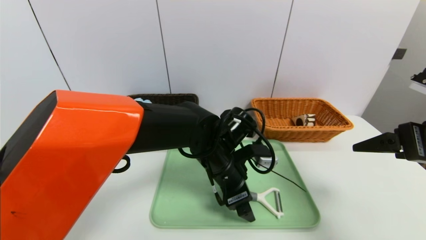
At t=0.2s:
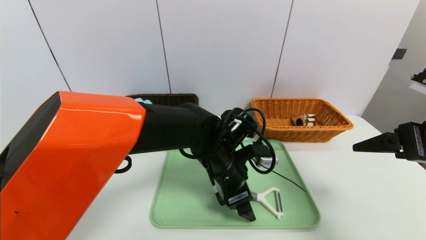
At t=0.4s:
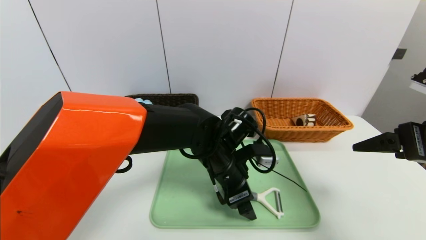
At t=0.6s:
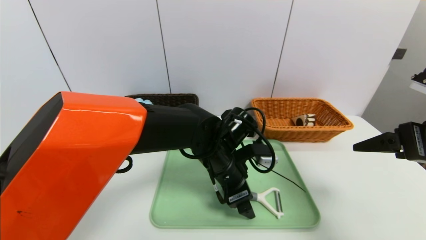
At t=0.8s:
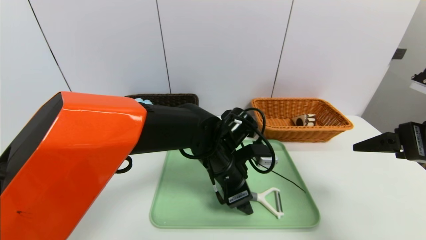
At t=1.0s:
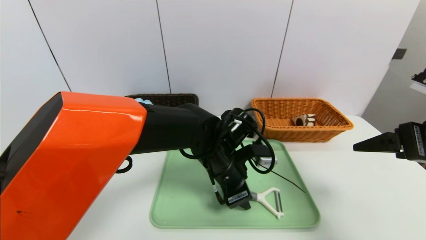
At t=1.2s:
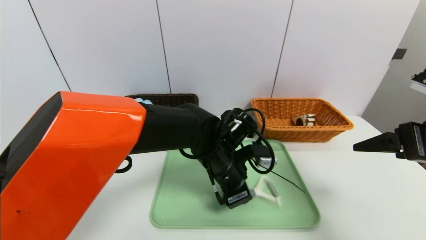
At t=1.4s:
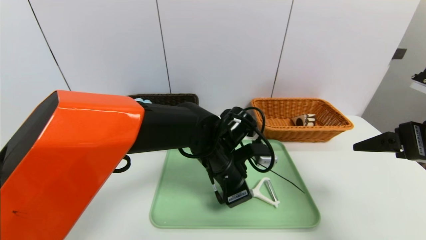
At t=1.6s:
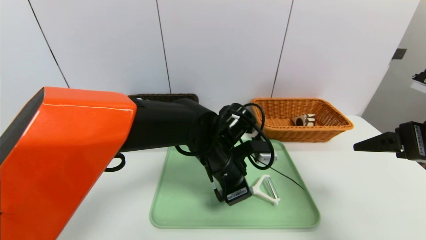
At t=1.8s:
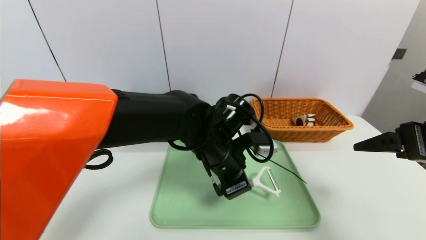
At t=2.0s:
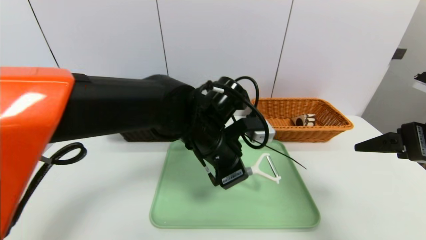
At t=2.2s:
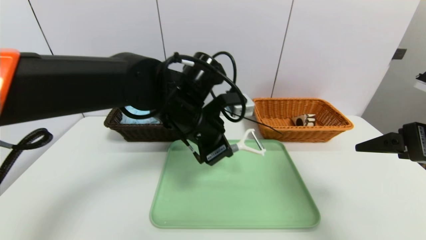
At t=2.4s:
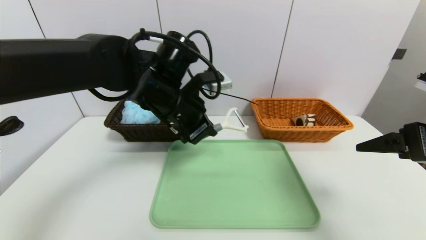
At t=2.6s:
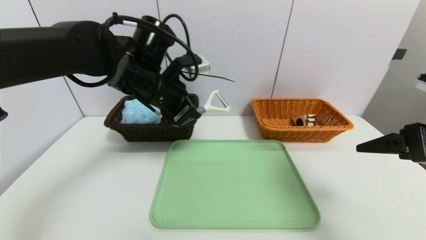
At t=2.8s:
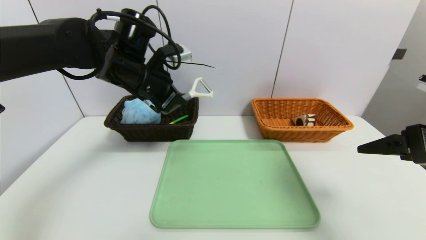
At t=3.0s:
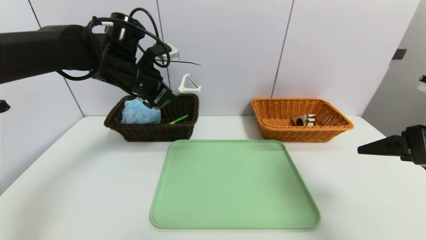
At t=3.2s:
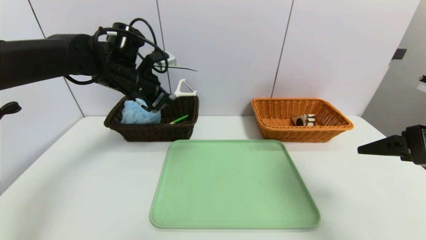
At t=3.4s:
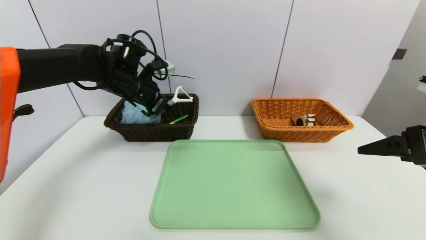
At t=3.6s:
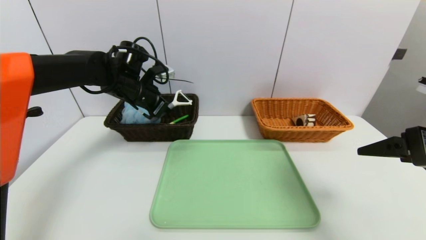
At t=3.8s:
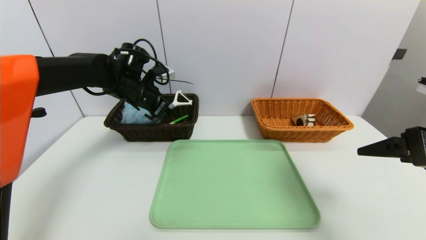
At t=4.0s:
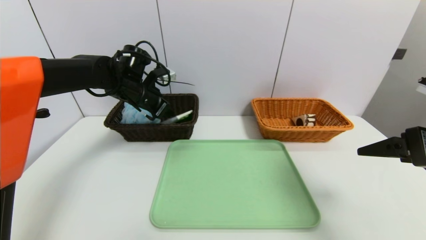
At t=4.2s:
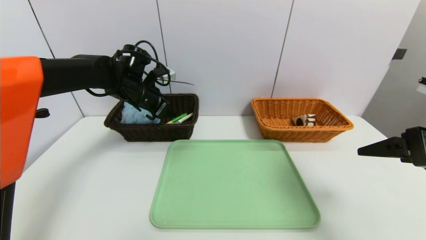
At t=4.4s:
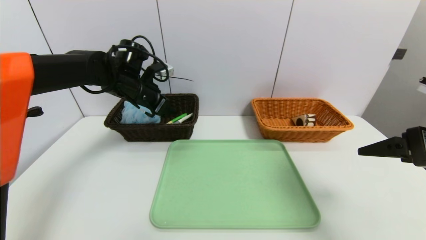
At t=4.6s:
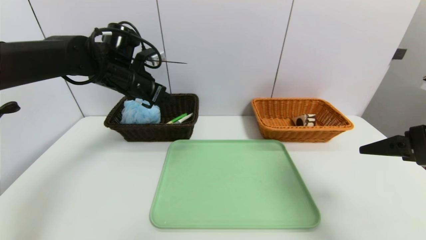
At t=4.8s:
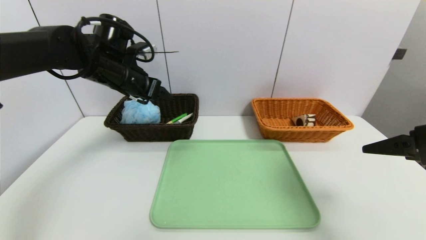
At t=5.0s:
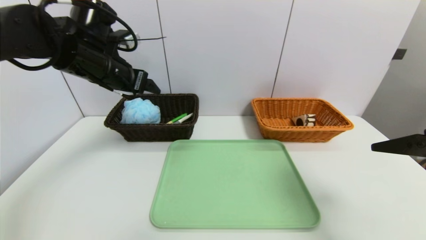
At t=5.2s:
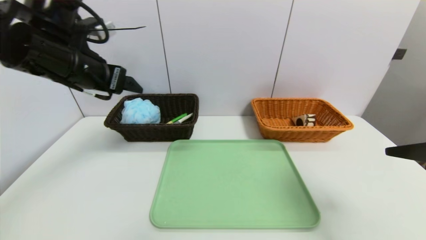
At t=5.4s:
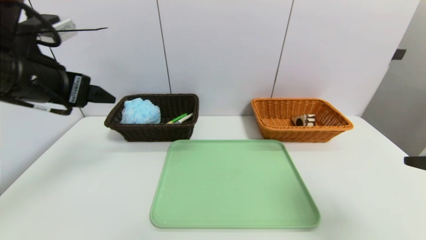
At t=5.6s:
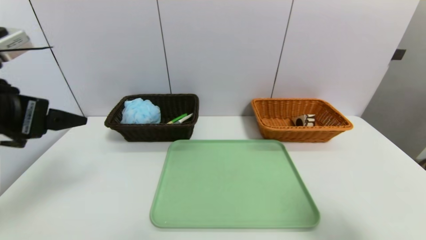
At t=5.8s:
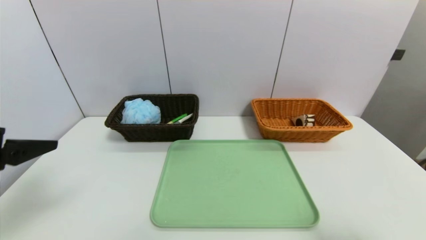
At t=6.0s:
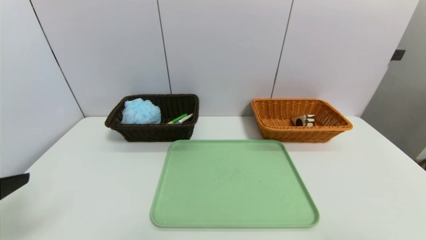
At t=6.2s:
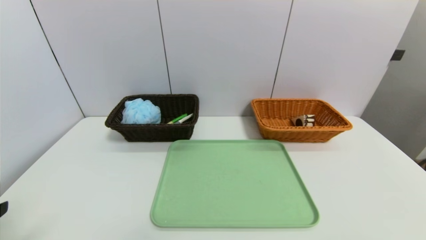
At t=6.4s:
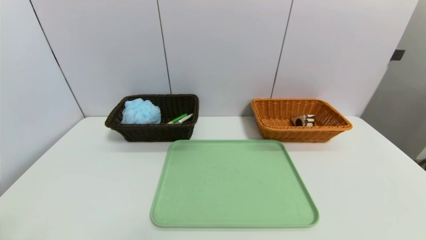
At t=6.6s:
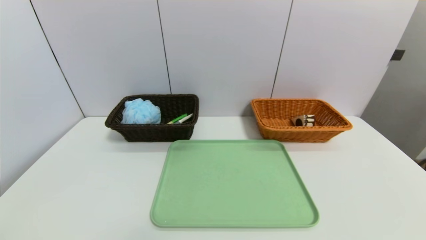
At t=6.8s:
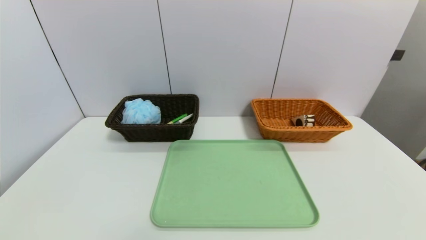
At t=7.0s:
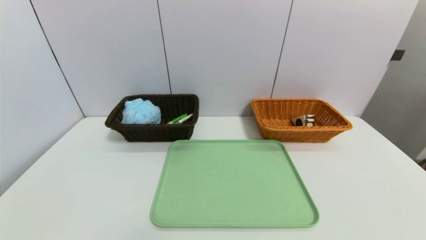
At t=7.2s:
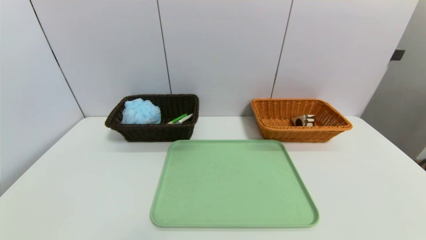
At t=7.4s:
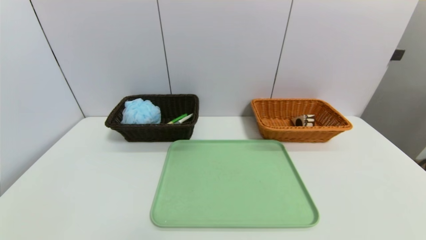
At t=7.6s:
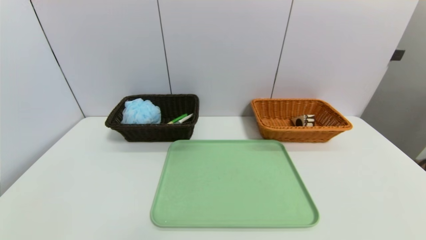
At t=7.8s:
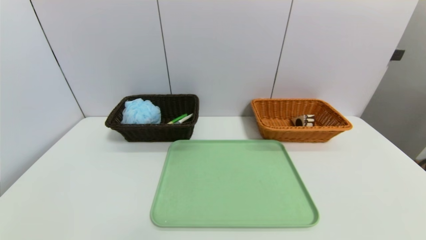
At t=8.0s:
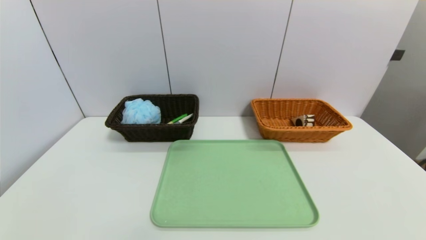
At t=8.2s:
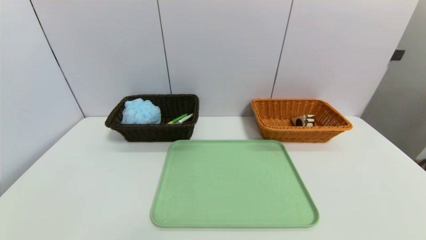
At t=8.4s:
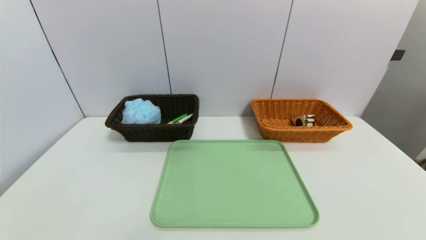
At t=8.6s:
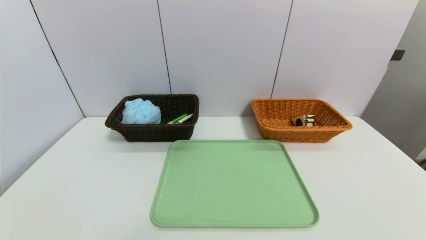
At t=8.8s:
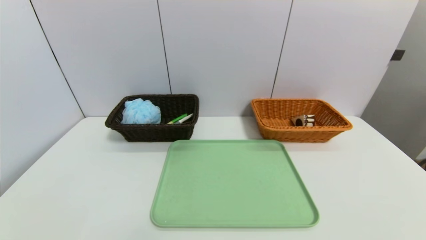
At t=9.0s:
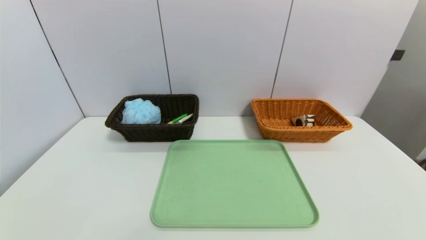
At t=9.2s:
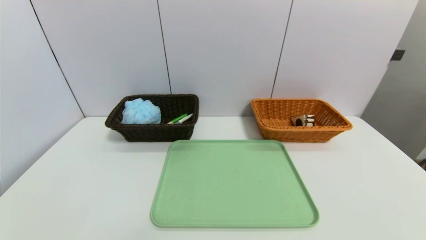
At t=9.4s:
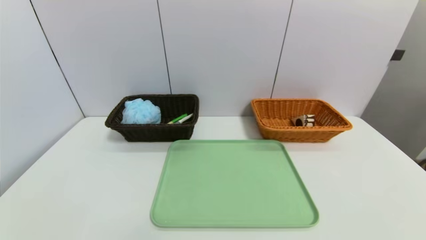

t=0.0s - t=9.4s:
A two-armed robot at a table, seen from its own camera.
Task of the whole recording: place the food in the right basket with the right gripper, and place the non food items in the left basket with the left gripper.
Step, t=0.0s - t=4.4s: Grasp the peeler and put it in the left basket.
t=0.0s - t=1.6s: The left gripper closes up.
t=1.6s - t=3.2s: The left gripper travels to the left, upward and forward by about 25 cm.
t=3.2s - t=4.8s: The left gripper opens.
t=4.8s - t=6.2s: The left gripper goes approximately 35 cm backward. Meanwhile the right gripper goes approximately 20 cm backward.

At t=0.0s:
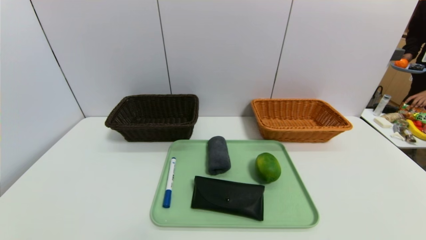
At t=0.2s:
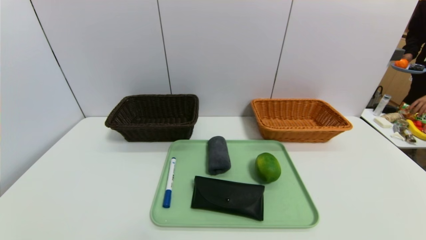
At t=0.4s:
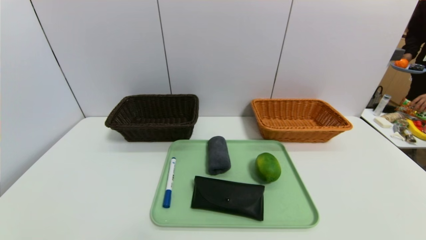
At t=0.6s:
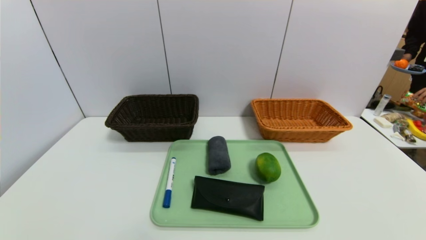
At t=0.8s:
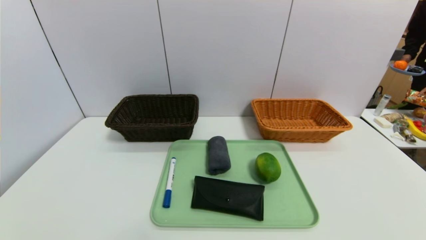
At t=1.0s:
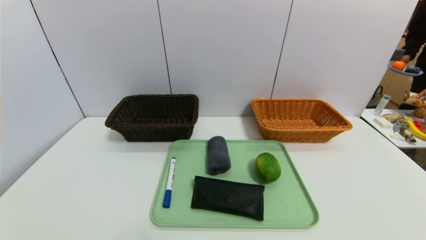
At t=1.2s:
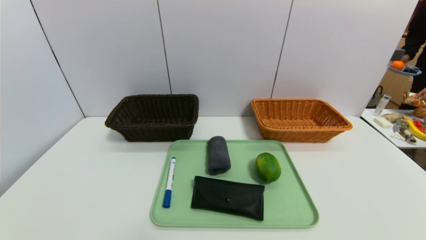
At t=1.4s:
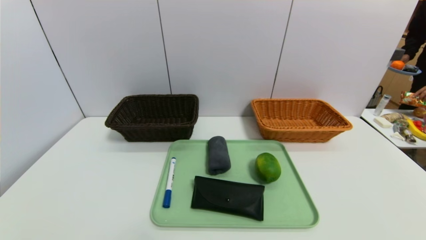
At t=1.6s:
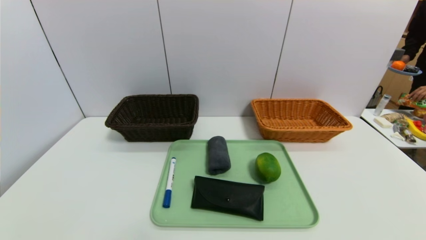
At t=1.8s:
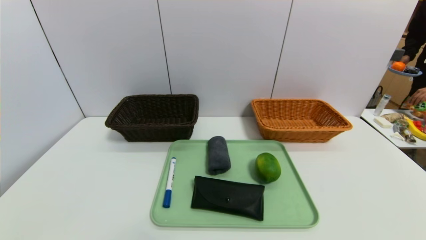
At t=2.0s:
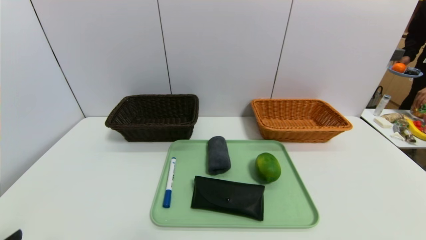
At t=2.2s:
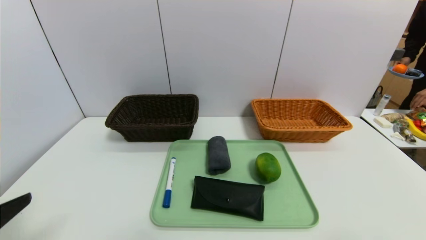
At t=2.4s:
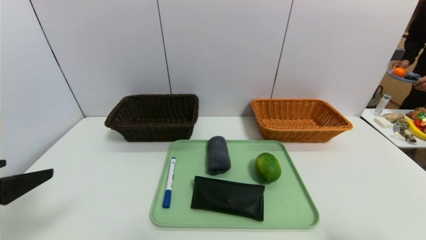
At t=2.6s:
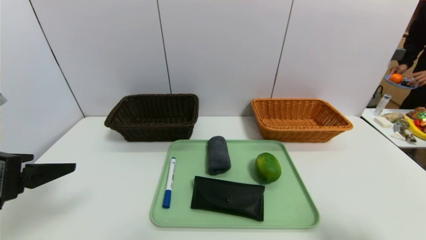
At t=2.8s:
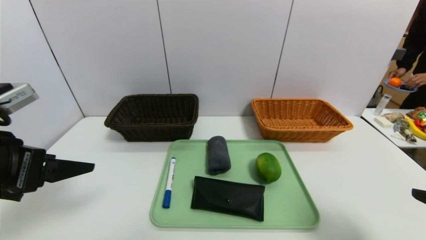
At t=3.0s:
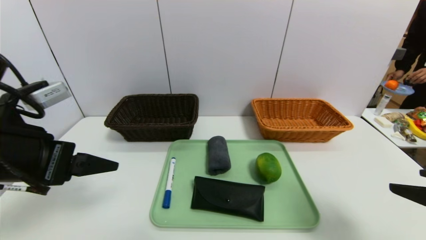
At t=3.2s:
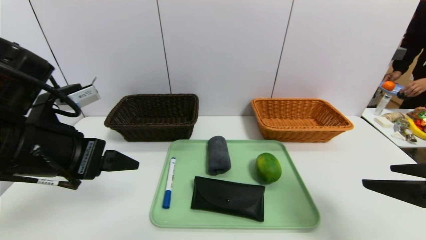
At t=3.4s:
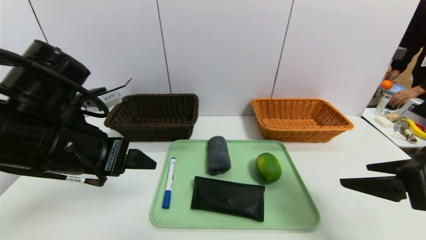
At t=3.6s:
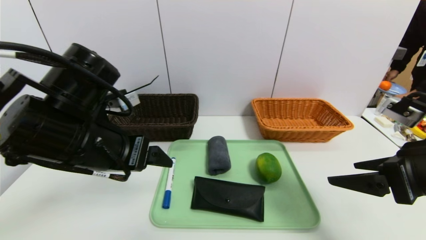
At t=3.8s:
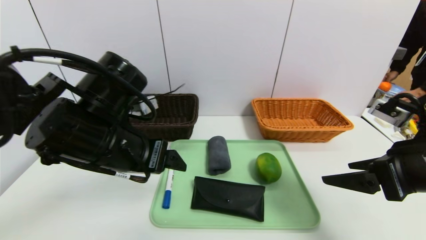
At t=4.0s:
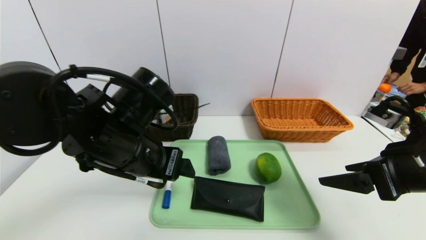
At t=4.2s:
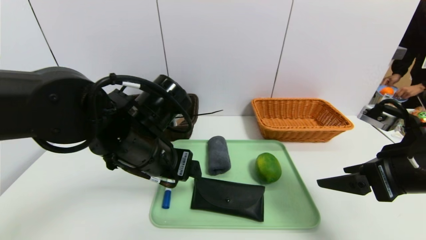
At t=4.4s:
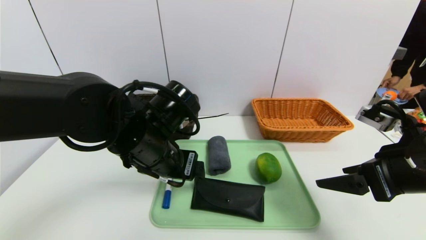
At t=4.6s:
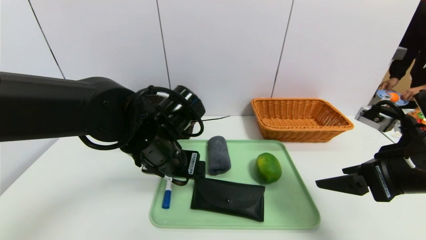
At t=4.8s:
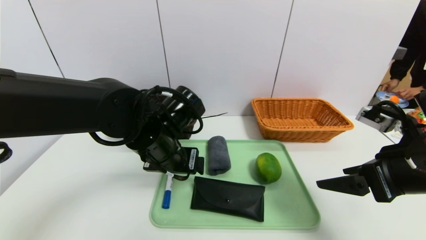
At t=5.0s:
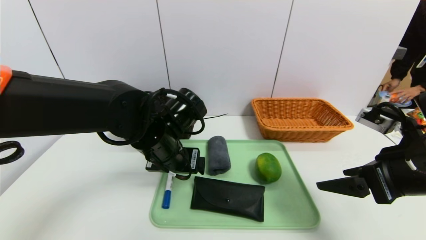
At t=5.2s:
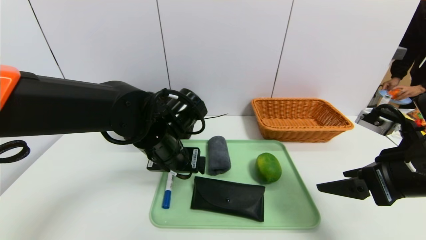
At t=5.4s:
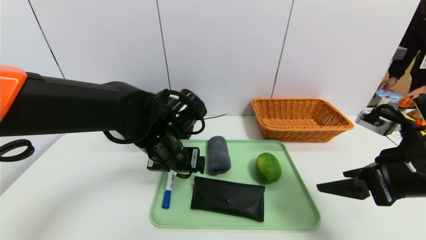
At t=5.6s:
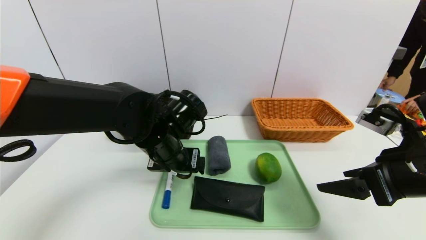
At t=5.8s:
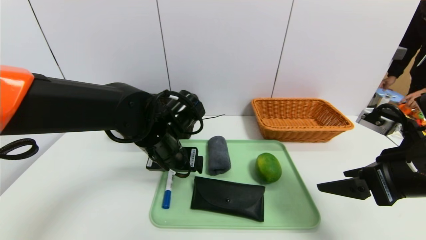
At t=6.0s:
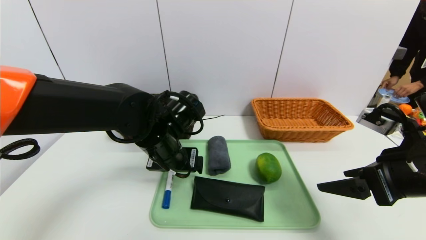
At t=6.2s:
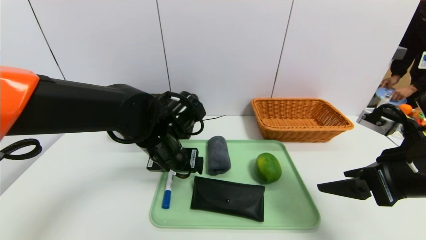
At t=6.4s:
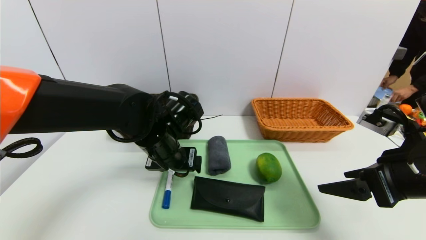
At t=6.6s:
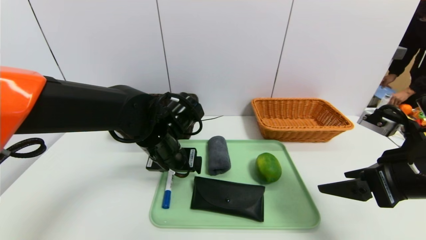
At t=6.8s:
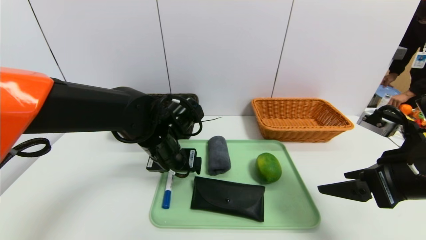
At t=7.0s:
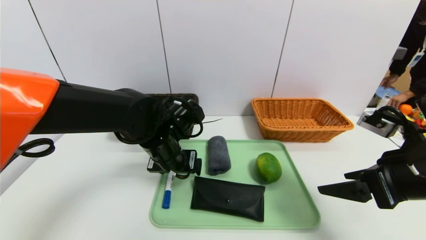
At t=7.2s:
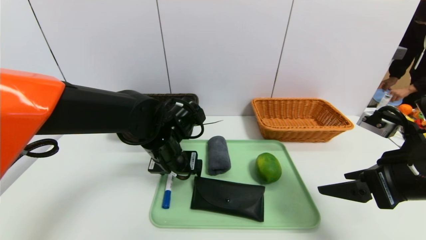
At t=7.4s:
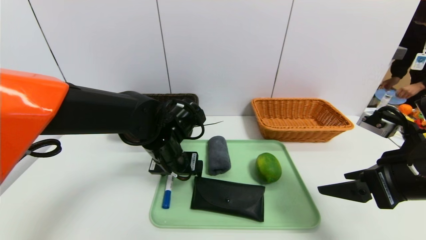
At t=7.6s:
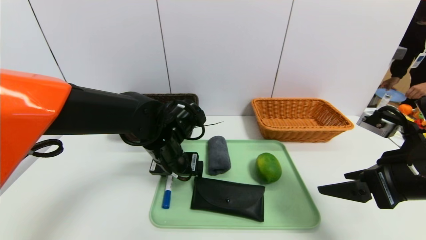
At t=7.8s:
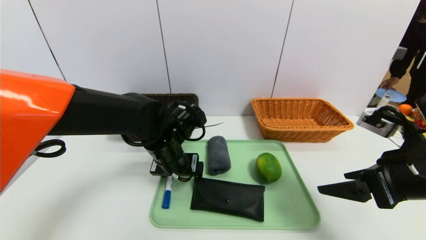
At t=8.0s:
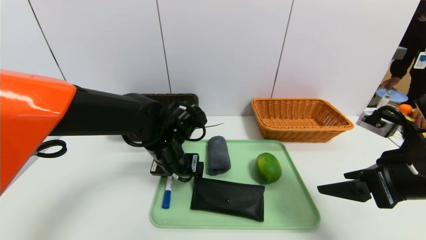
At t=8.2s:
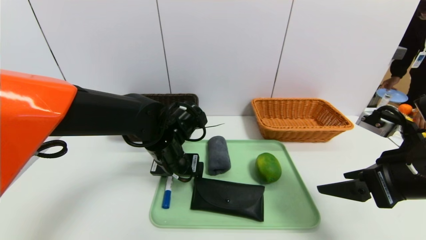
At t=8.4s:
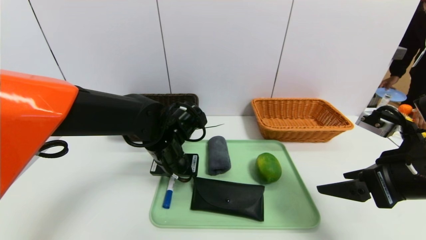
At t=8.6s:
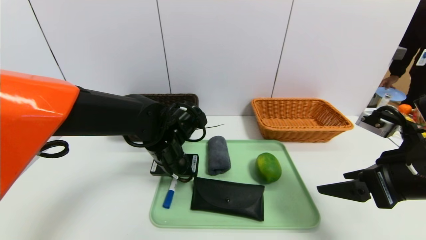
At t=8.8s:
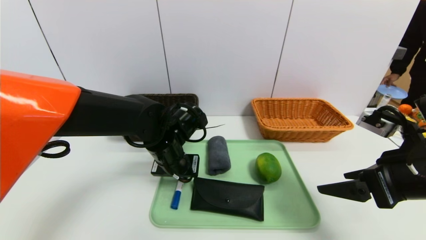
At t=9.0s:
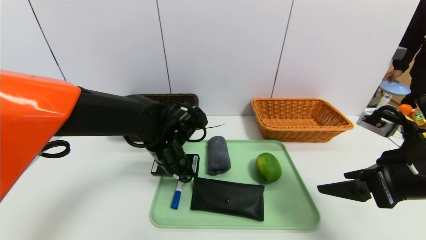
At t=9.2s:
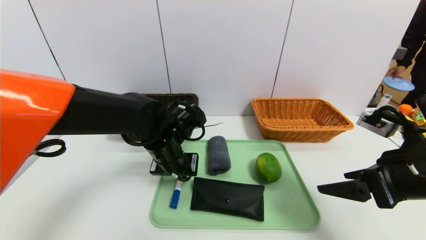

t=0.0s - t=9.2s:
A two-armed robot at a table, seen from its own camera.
Task of the whole recording: place the food in the right basket with the right gripper, and place the non food items in the left basket with the left gripper.
t=0.0s - t=1.6s: The grippers stay close to where they were, moving slightly.
t=1.6s - t=3.0s: The two grippers go some 20 cm forward and upward.
t=3.0s - t=4.6s: The right gripper is displaced forward by some 10 cm. Meanwhile the left gripper goes approximately 20 cm to the right, forward and downward.
t=4.6s - t=7.6s: There are only small adjustments of the grippers.
t=7.6s - t=9.2s: The left gripper closes.
